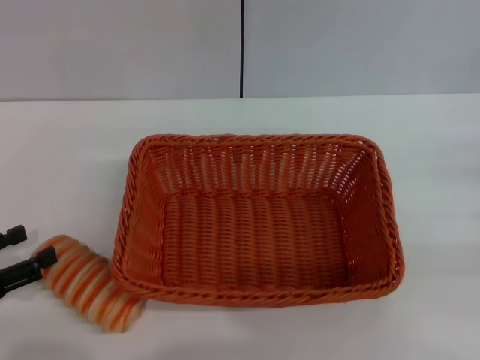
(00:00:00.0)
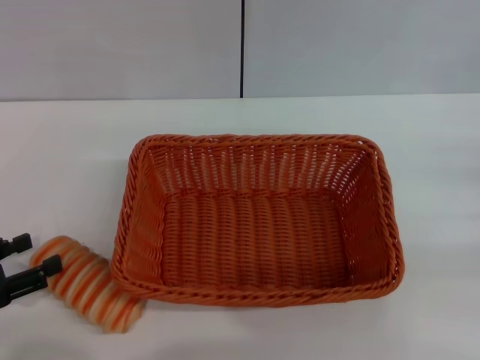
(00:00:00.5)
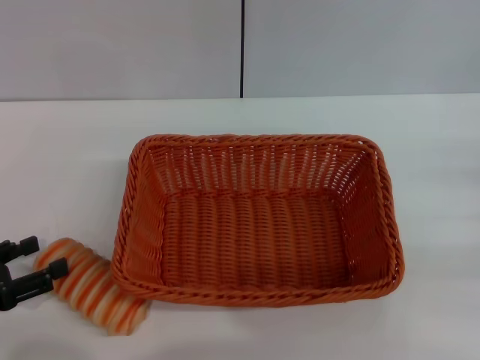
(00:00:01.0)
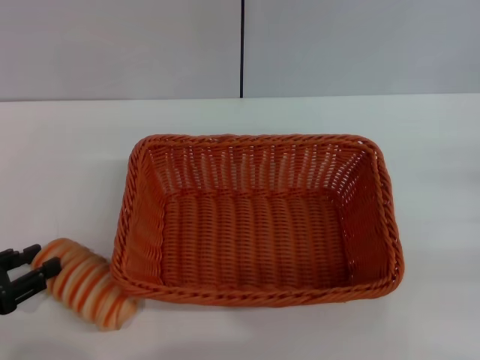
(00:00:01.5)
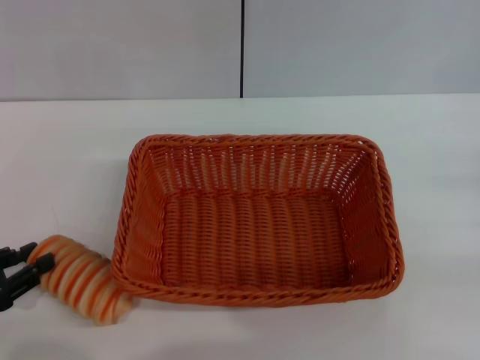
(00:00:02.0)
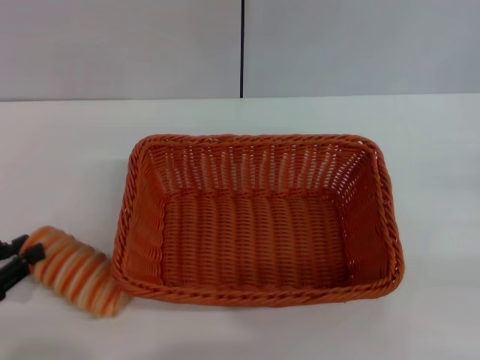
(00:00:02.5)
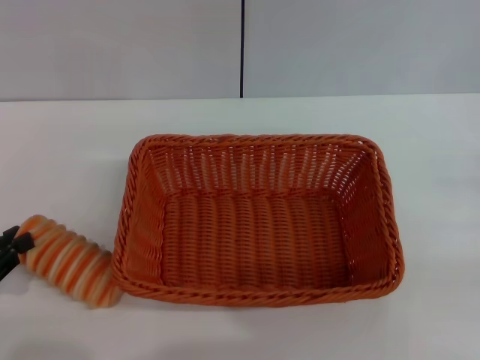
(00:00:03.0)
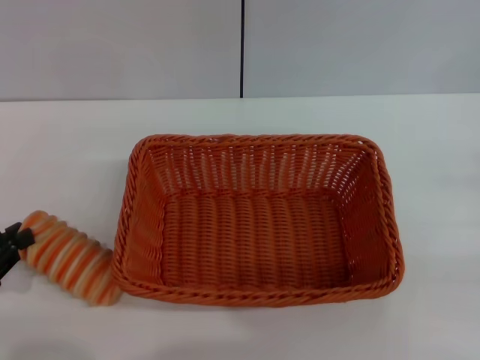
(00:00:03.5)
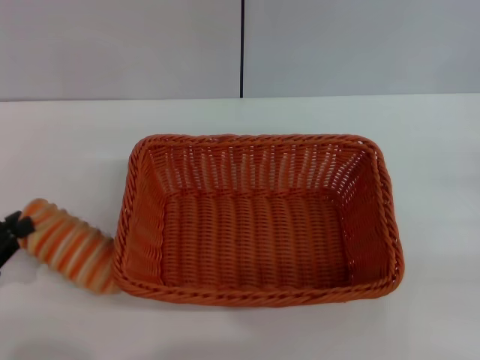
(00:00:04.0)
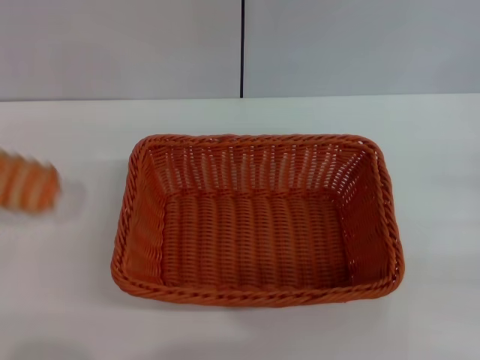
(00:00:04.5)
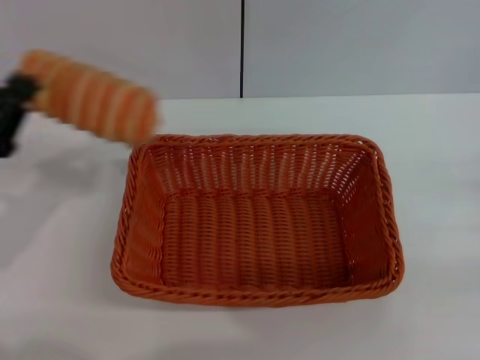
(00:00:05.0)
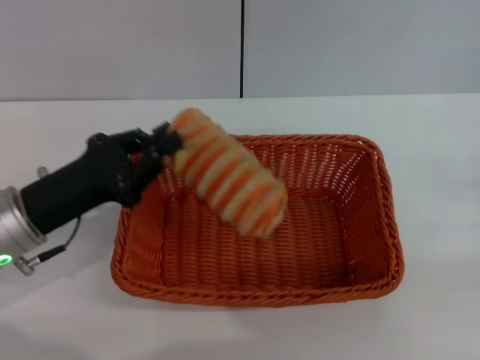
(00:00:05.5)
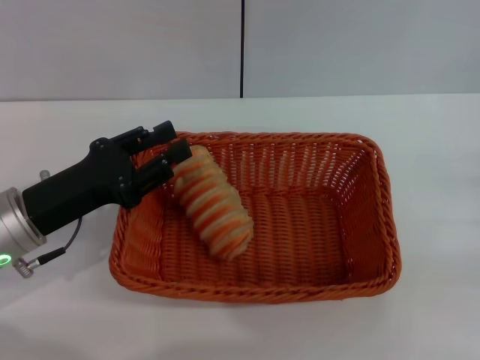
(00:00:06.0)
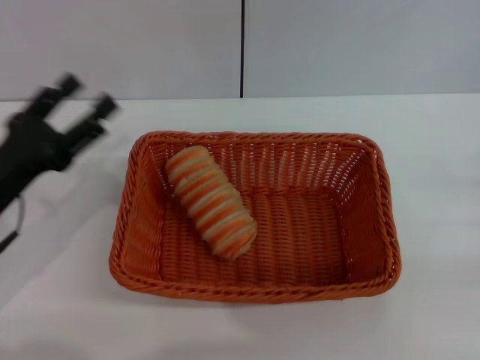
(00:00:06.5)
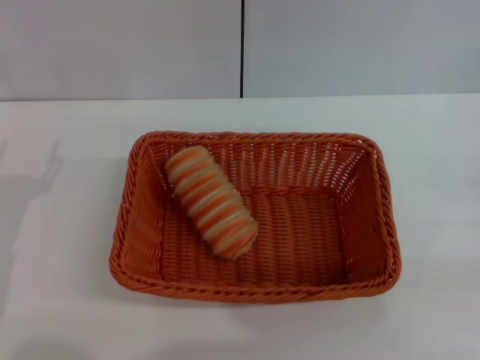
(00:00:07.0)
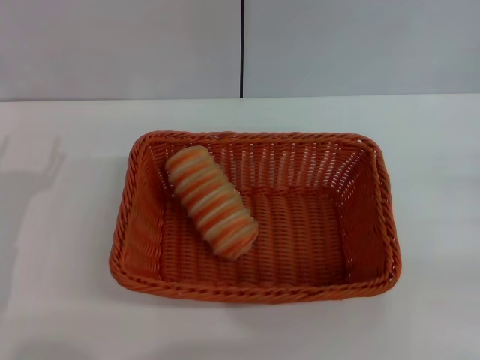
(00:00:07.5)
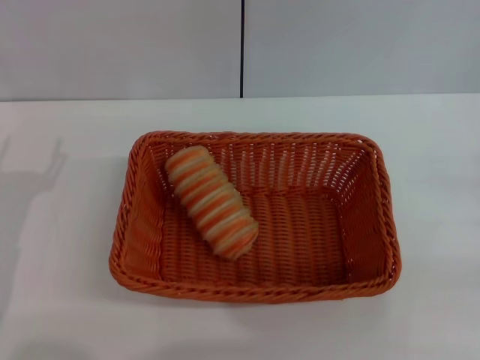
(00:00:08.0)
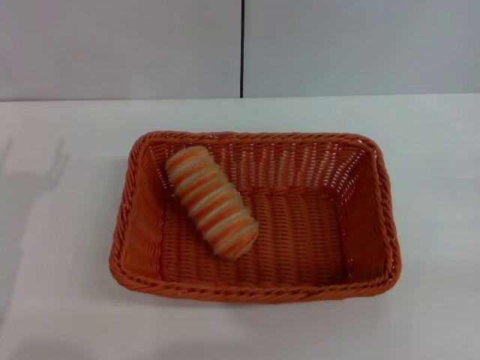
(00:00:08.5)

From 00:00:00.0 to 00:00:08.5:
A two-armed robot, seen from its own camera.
Step, from 00:00:00.0 to 00:00:04.5: Pick up the long bread with the left gripper.
Step, from 00:00:05.0 to 00:00:06.0: Place the long bread into the light basket with the left gripper.
From 00:00:00.0 to 00:00:02.0: The left gripper closes.
From 00:00:02.0 to 00:00:04.0: The left gripper closes up.
From 00:00:04.0 to 00:00:06.5: The left gripper heads to the right and forward, covering about 10 cm, and opens its fingers.
